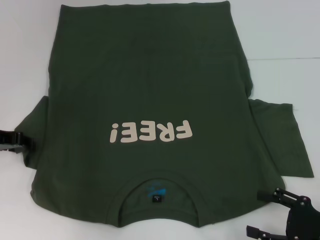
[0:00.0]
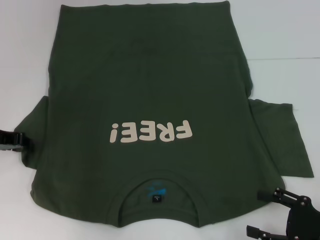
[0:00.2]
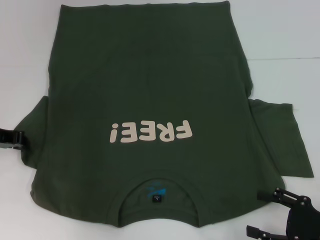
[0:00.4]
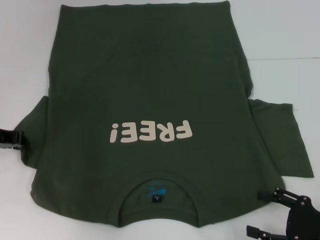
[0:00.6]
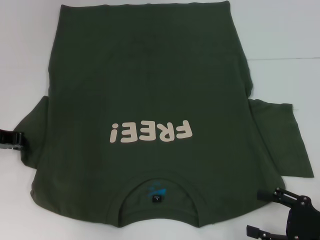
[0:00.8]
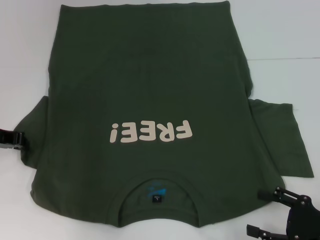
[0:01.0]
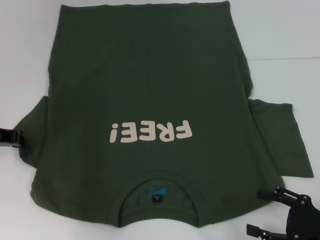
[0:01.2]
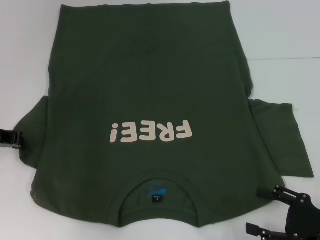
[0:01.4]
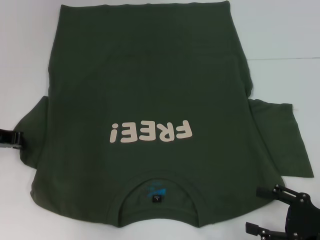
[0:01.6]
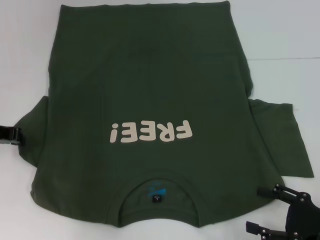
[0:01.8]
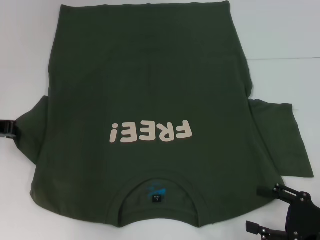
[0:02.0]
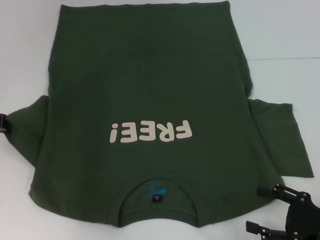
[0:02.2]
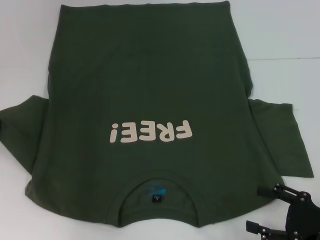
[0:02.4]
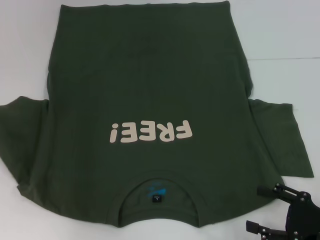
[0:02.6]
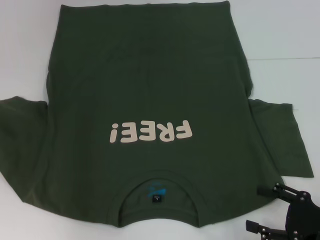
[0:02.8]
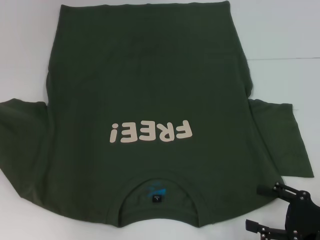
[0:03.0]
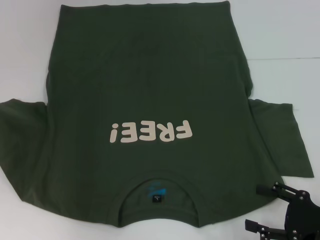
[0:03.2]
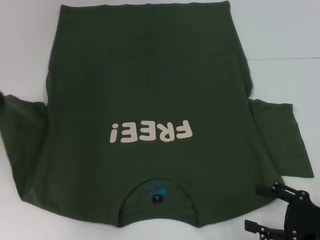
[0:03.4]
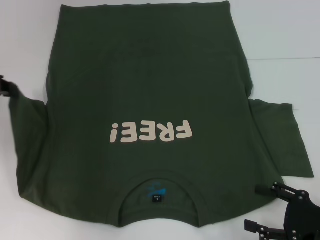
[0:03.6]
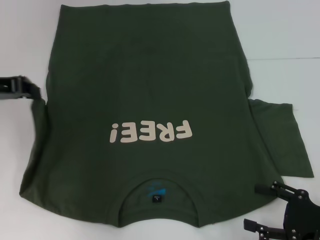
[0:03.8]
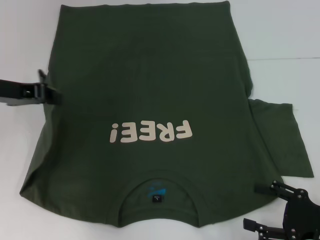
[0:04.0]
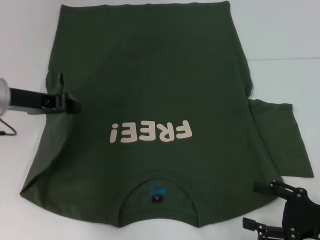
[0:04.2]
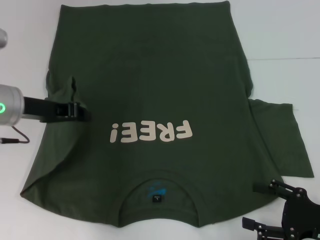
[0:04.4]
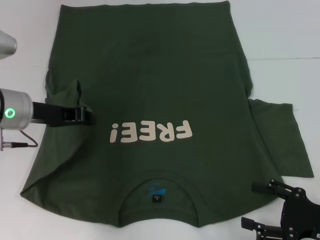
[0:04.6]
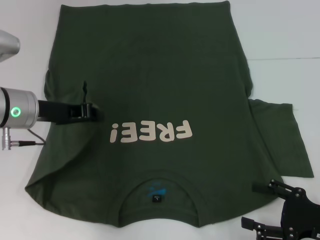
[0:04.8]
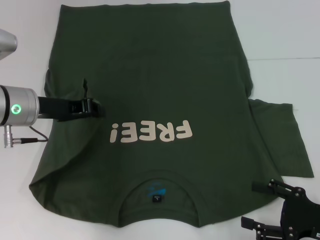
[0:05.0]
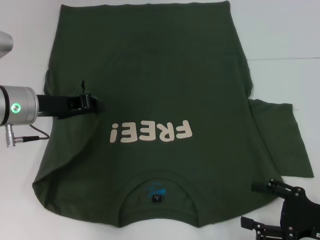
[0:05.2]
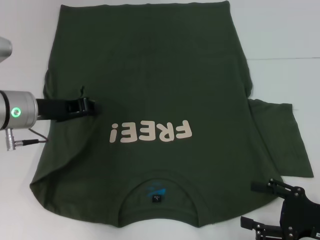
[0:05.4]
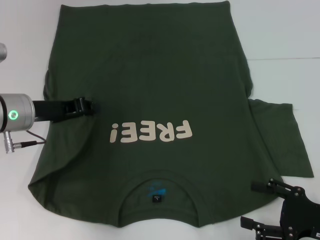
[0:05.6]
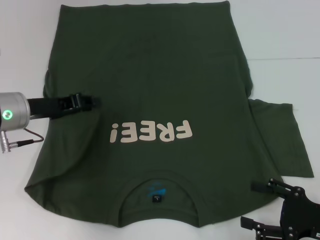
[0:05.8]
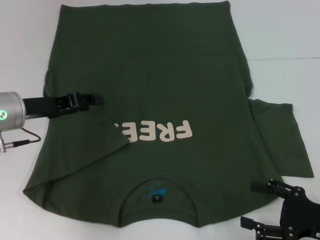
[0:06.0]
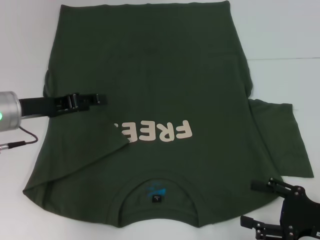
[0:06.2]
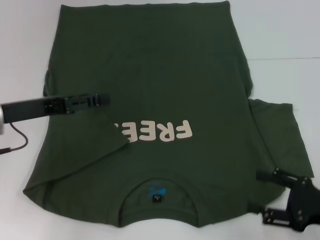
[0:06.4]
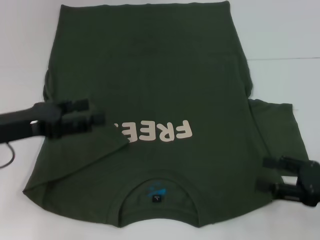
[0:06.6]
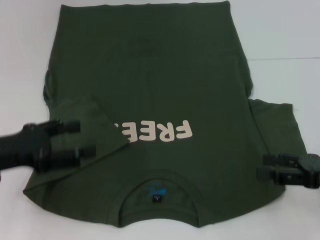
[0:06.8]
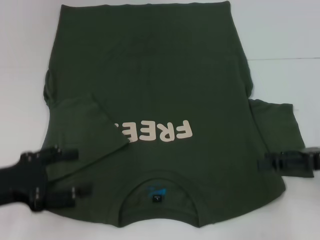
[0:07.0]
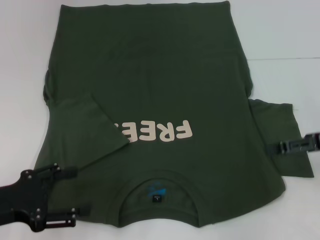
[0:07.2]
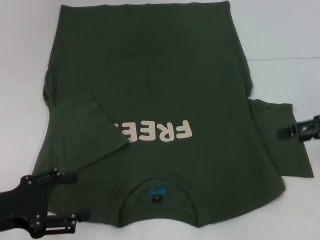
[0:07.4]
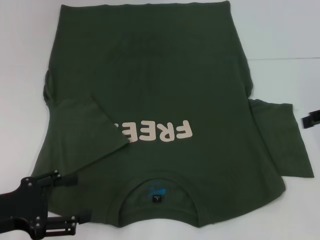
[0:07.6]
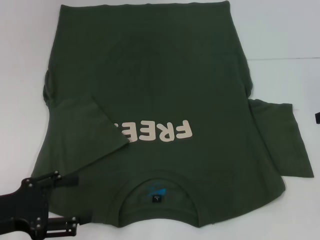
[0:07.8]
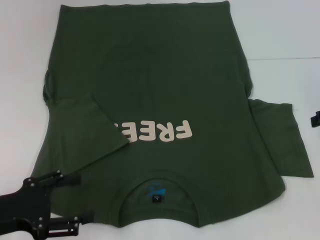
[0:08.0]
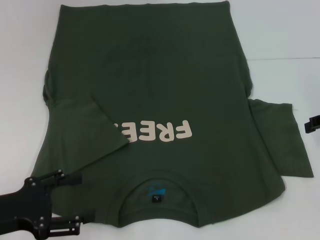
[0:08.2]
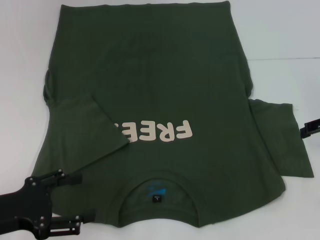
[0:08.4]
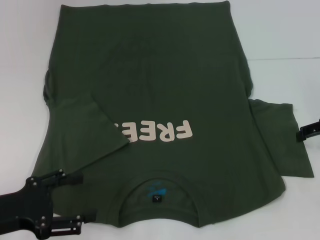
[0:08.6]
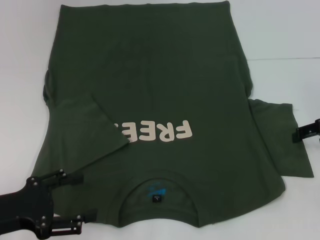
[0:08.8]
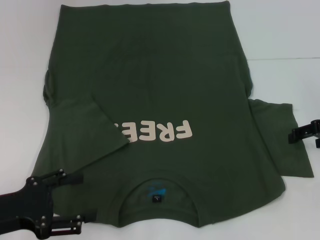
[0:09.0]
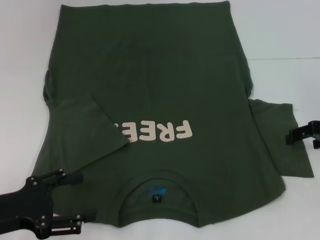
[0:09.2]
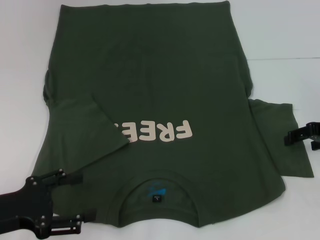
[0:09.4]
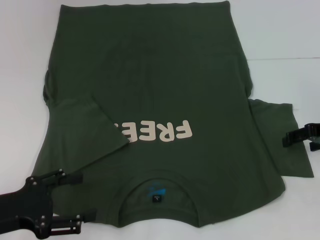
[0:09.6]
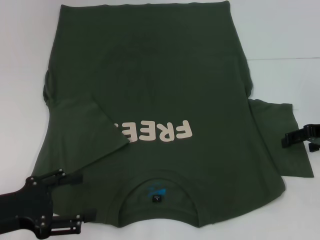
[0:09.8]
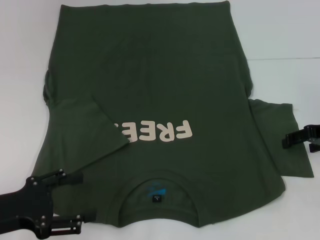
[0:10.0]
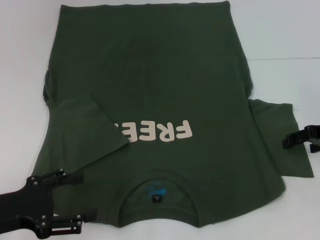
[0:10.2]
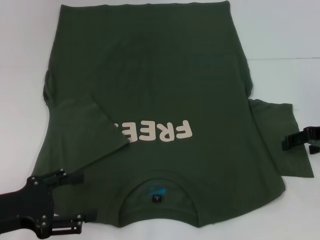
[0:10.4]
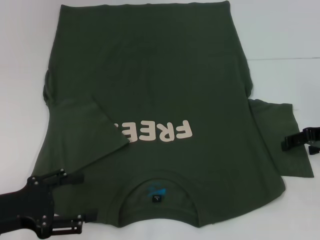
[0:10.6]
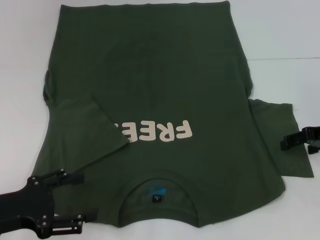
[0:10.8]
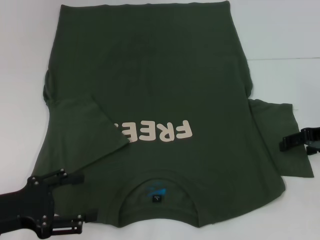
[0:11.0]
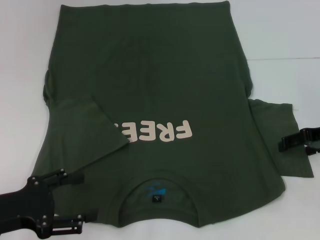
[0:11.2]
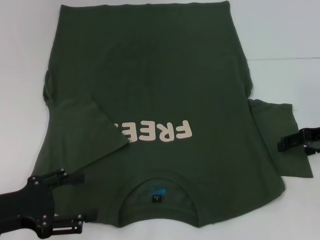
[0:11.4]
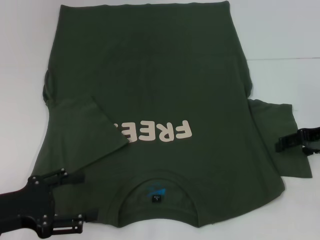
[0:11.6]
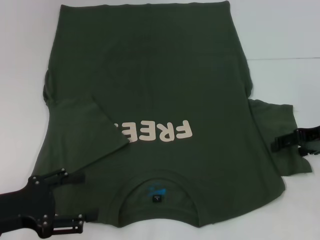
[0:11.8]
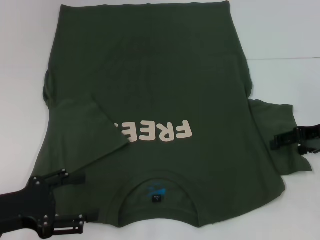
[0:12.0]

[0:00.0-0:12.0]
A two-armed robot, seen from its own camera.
Step, 0:00.0 to 0:06.2: Fold the bottom left sleeve with your left hand.
0:01.6 to 0:03.0: The left gripper travels upward and to the left by some 10 cm.
0:03.0 to 0:04.4: The left gripper is displaced to the right by roughly 15 cm.
0:04.4 to 0:06.0: The grippers move only a little.
0:06.0 to 0:07.6: The right gripper is displaced upward and forward by roughly 20 cm. The left gripper is displaced backward by about 15 cm, and opens.
0:07.6 to 0:09.0: The right gripper moves downward, some 5 cm.
0:09.0 to 0:10.4: Neither gripper changes place.
0:10.4 to 0:12.0: Both grippers stay put.

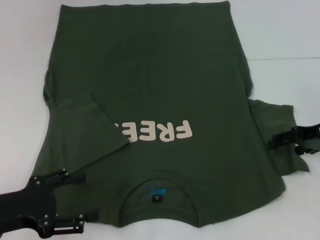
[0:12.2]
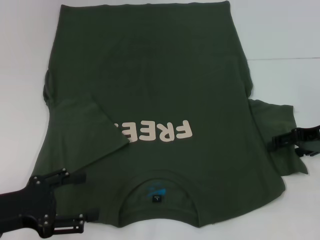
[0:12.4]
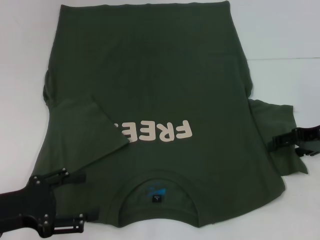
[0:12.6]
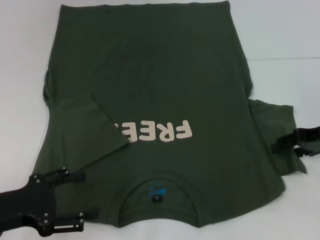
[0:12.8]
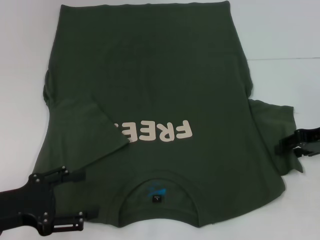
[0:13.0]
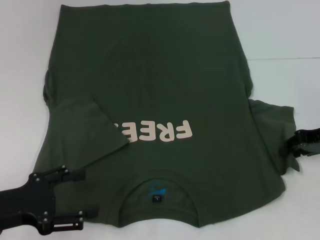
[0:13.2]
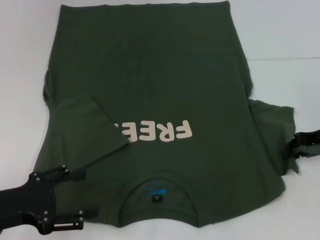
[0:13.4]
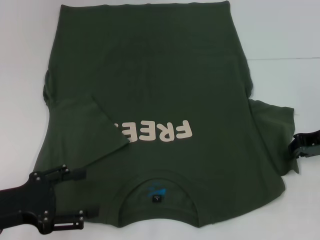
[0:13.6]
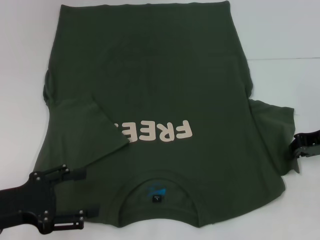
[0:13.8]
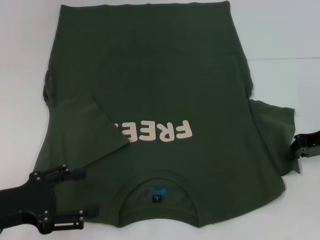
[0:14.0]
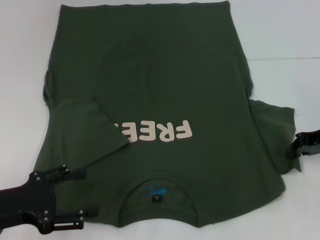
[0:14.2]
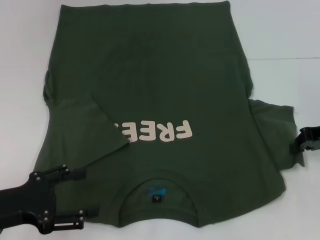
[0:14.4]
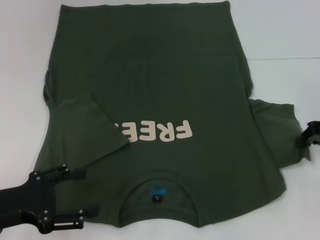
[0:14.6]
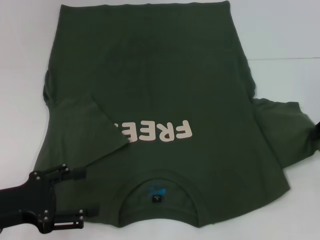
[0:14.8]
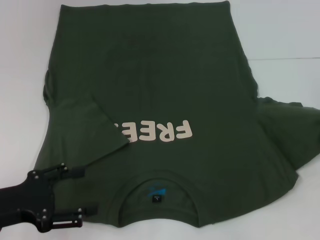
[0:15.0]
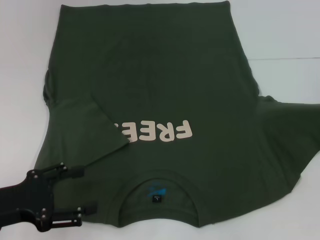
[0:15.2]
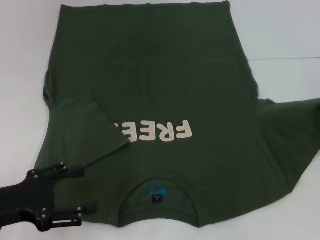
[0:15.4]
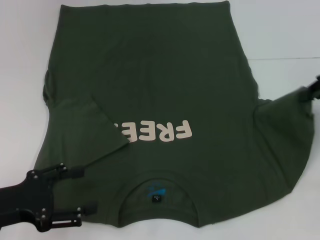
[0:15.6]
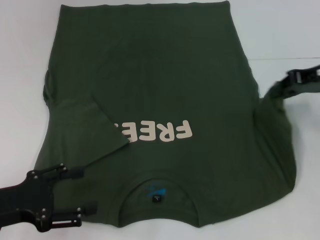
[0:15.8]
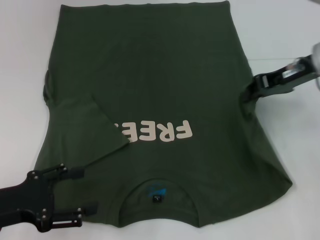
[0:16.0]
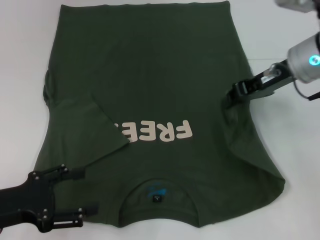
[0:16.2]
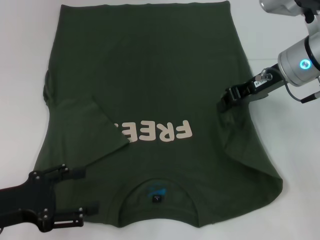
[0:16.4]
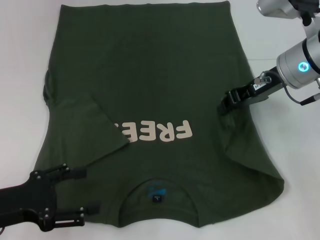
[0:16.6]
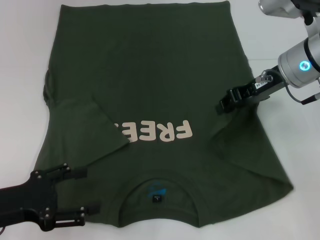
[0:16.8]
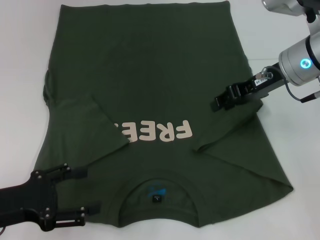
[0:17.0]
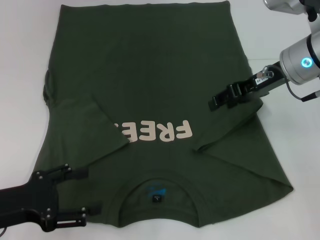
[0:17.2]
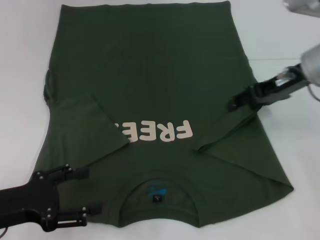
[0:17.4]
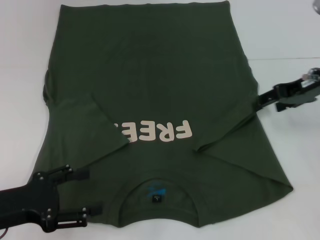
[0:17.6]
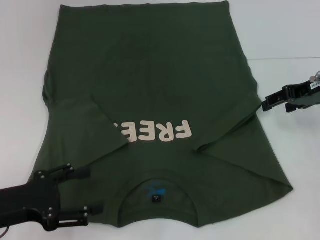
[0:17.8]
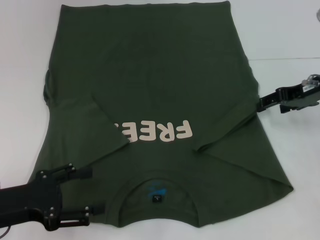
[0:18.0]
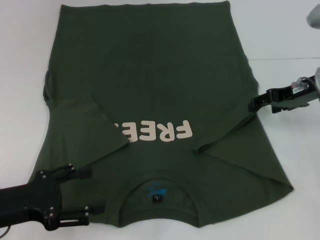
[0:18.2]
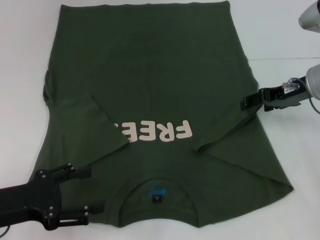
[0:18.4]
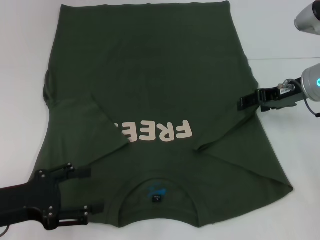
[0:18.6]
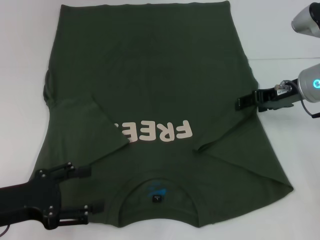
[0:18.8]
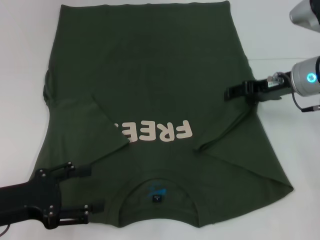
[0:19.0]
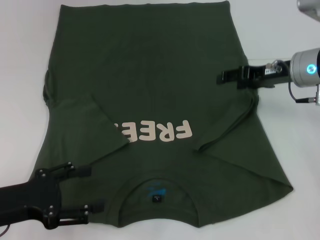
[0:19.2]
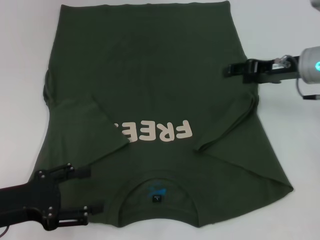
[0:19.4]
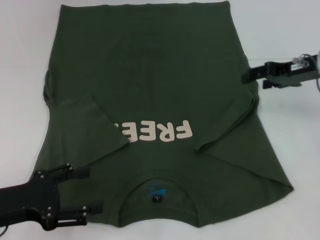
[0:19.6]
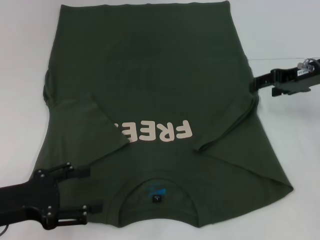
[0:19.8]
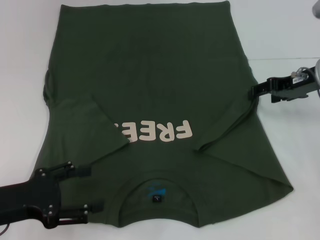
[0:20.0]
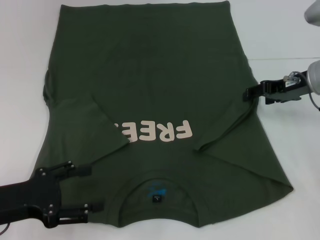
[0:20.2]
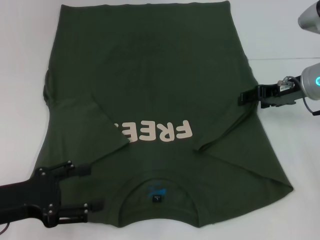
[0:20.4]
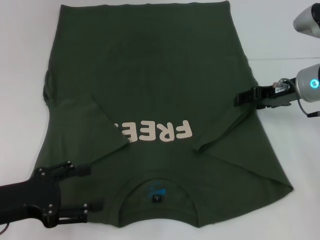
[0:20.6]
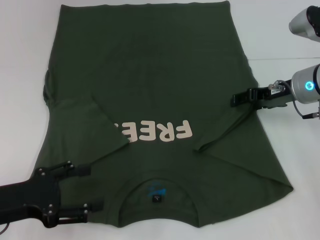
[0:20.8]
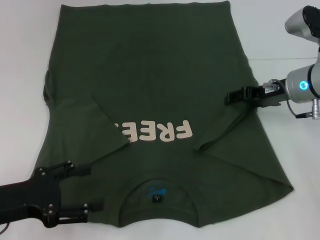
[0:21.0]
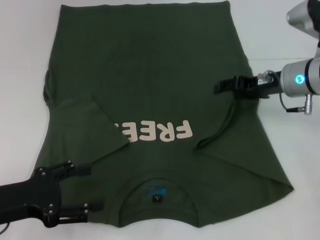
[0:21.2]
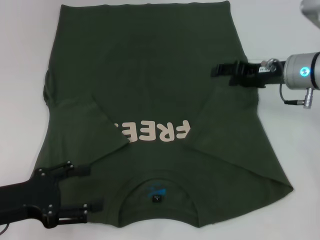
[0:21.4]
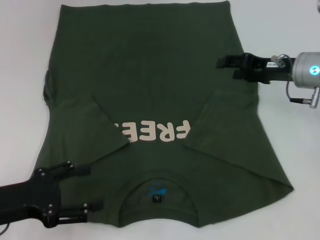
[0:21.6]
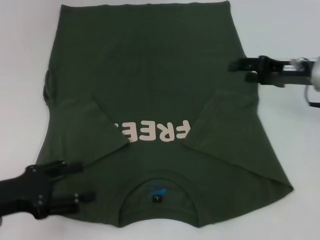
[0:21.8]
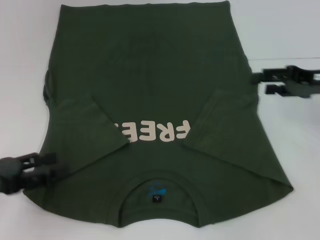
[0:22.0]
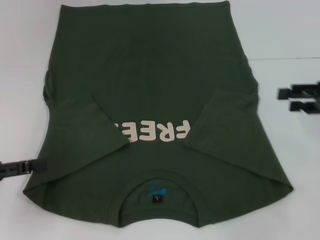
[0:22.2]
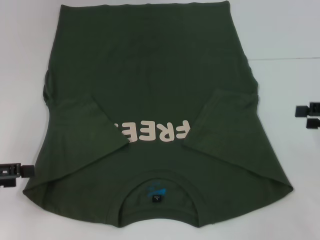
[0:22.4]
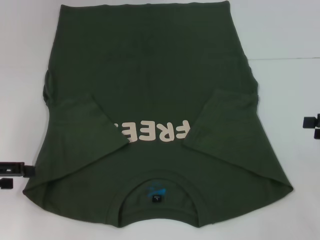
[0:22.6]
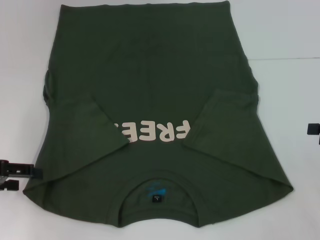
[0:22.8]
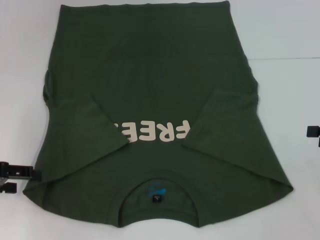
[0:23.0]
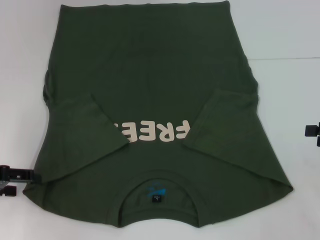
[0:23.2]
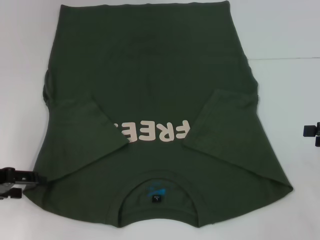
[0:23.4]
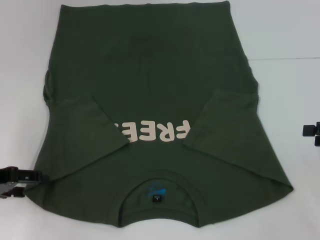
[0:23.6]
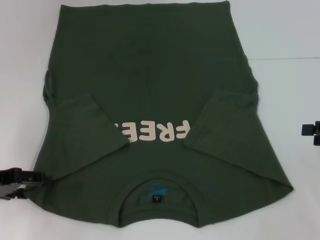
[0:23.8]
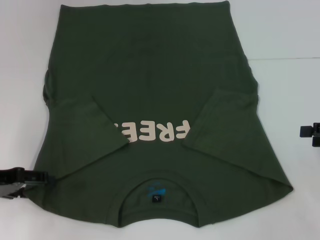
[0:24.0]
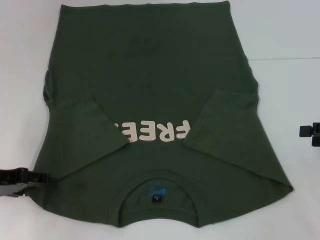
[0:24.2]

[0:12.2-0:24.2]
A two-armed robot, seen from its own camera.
Step, 0:12.2 to 0:21.4: Fold the bottom right sleeve with your right hand.
0:12.2 to 0:13.8: The right gripper closes.
0:13.8 to 0:15.2: The right gripper heads to the right and upward, covering some 10 cm.
0:15.2 to 0:16.6: The right gripper is displaced to the left by approximately 20 cm.
0:16.6 to 0:18.2: The right gripper moves to the right, some 5 cm, and opens up.
0:18.2 to 0:19.8: The grippers make only small movements.
0:19.8 to 0:21.2: The right gripper changes place by some 5 cm.
0:21.2 to 0:22.6: The right gripper goes roughly 20 cm to the right and backward. Meanwhile the left gripper goes approximately 10 cm to the left and forward.
0:22.6 to 0:24.2: The grippers move only a little.
